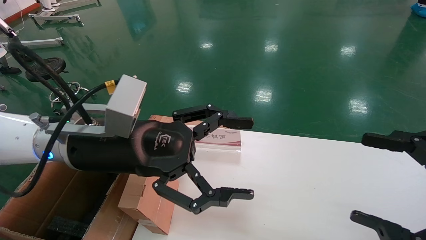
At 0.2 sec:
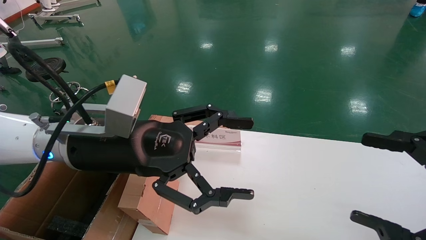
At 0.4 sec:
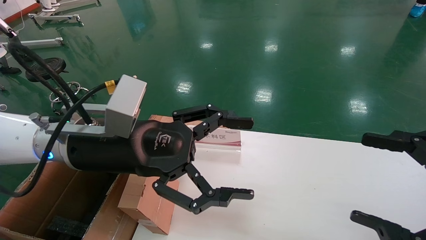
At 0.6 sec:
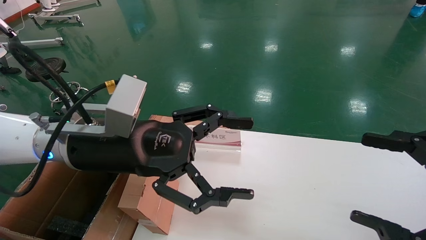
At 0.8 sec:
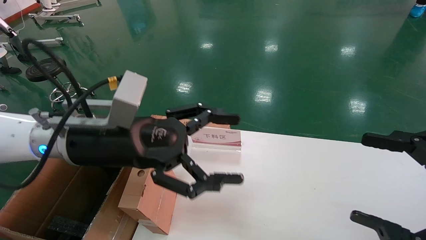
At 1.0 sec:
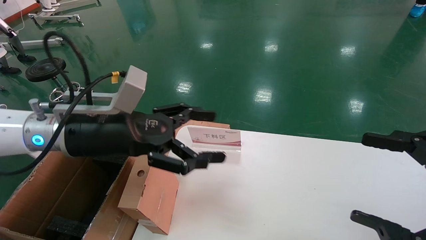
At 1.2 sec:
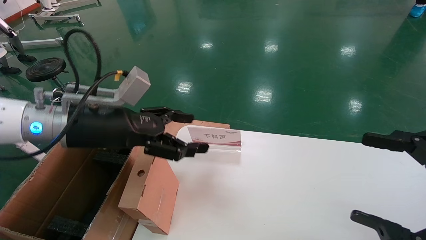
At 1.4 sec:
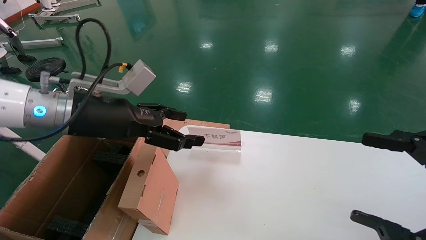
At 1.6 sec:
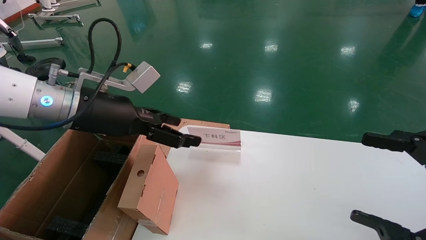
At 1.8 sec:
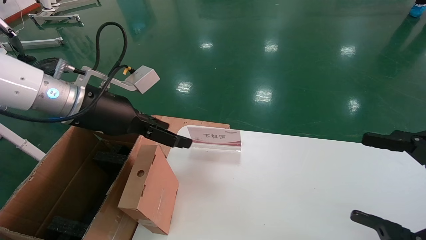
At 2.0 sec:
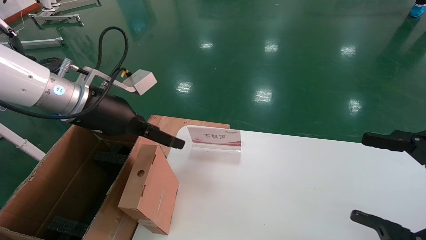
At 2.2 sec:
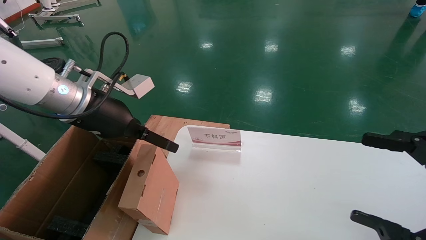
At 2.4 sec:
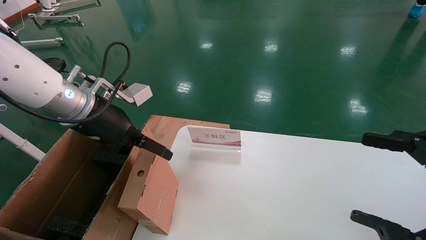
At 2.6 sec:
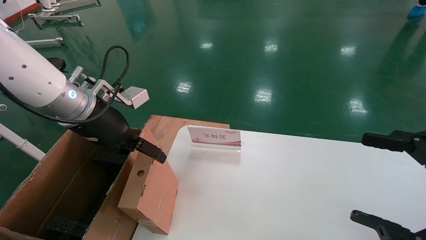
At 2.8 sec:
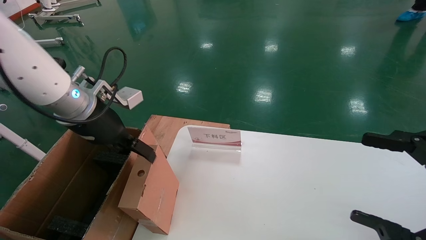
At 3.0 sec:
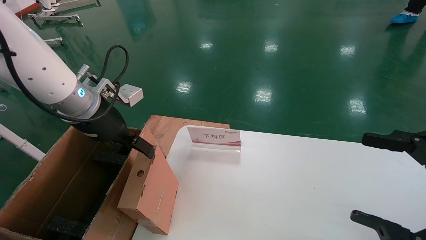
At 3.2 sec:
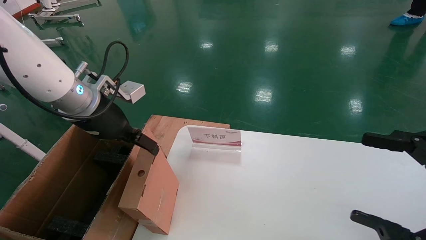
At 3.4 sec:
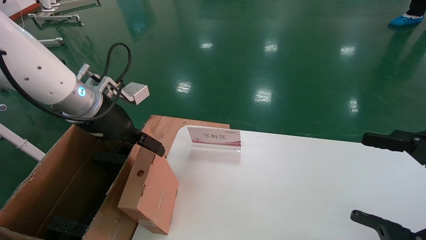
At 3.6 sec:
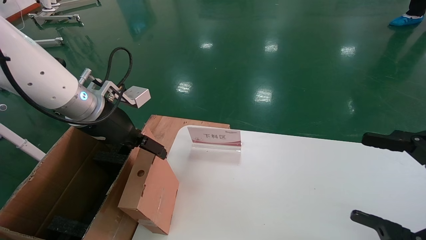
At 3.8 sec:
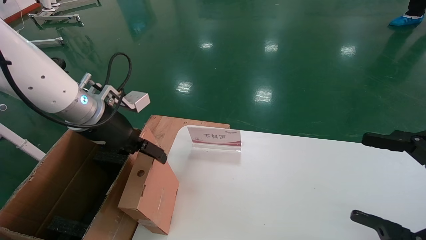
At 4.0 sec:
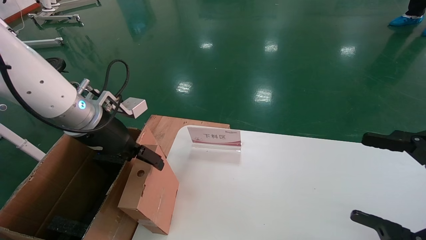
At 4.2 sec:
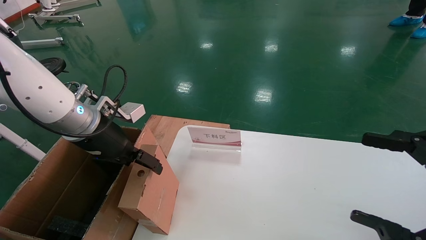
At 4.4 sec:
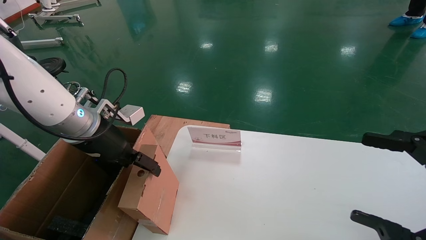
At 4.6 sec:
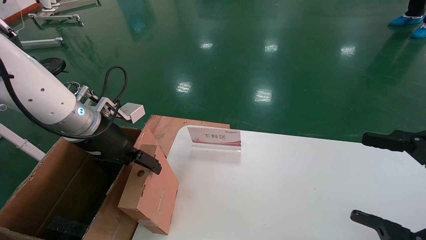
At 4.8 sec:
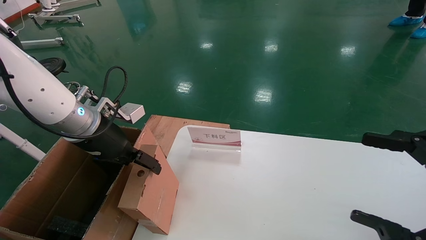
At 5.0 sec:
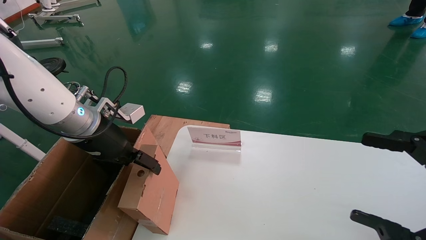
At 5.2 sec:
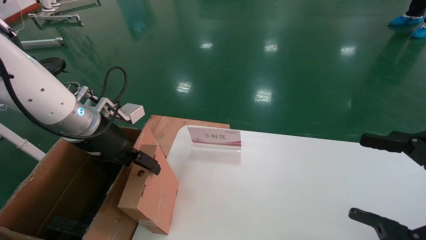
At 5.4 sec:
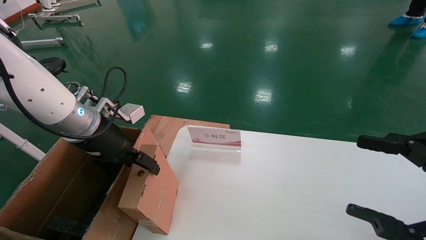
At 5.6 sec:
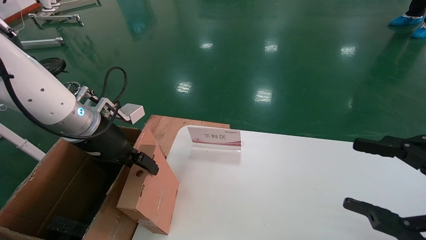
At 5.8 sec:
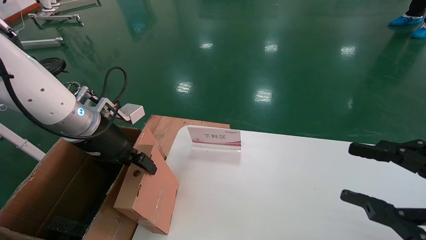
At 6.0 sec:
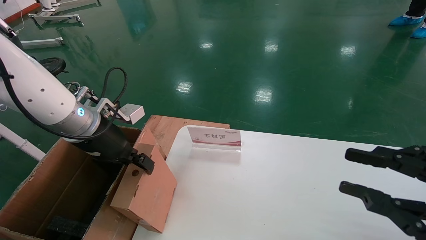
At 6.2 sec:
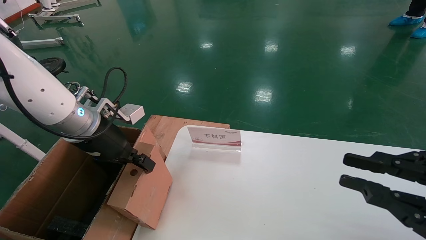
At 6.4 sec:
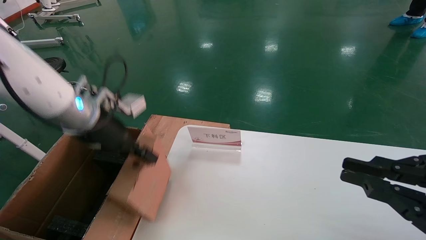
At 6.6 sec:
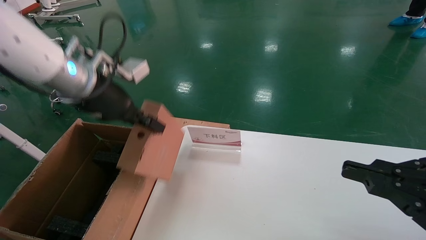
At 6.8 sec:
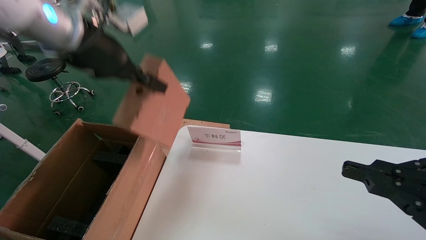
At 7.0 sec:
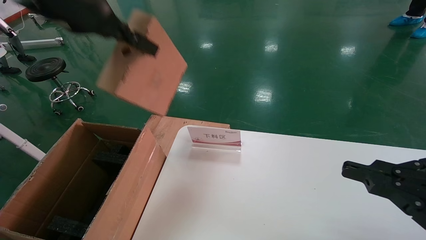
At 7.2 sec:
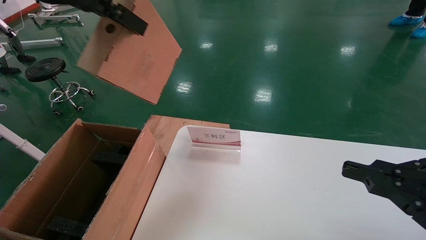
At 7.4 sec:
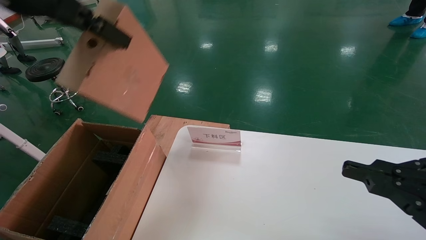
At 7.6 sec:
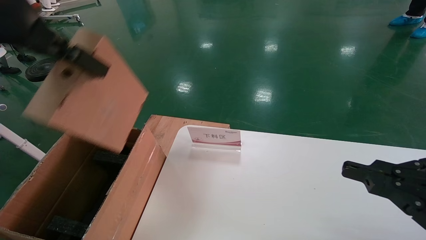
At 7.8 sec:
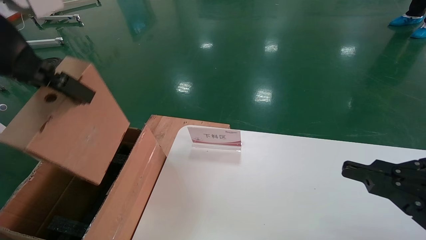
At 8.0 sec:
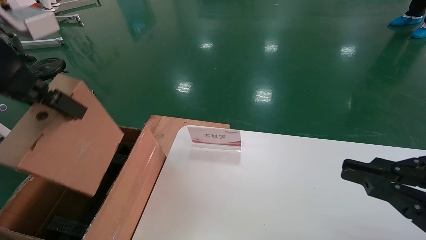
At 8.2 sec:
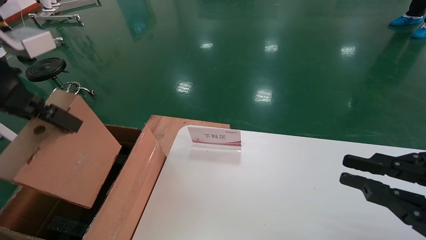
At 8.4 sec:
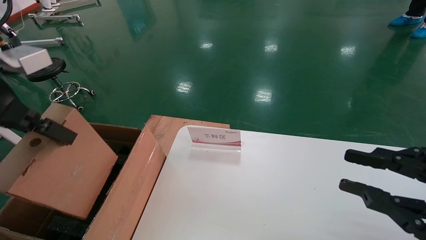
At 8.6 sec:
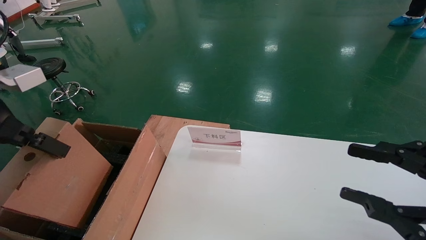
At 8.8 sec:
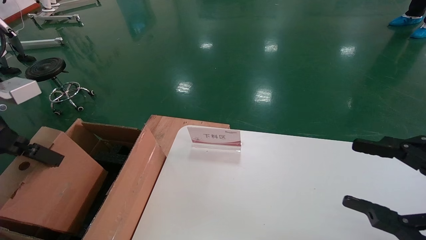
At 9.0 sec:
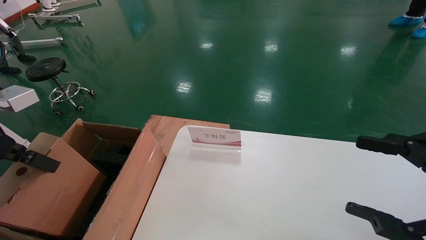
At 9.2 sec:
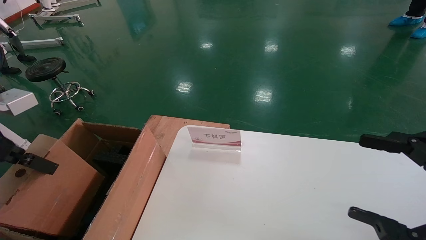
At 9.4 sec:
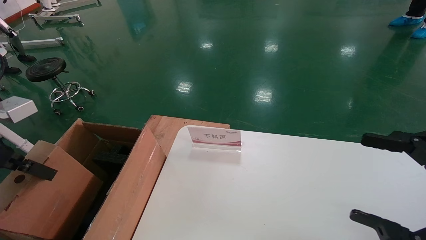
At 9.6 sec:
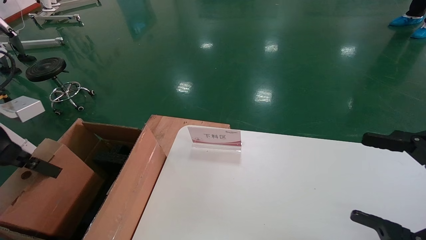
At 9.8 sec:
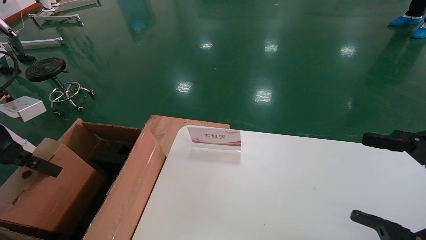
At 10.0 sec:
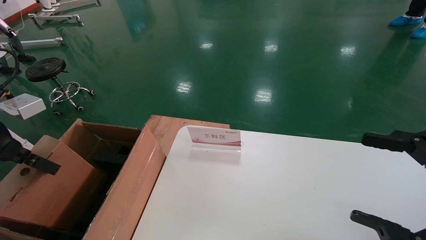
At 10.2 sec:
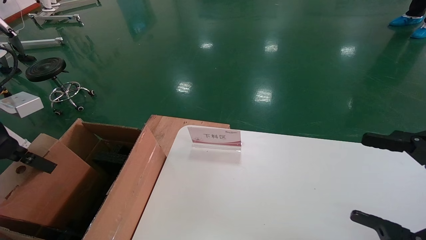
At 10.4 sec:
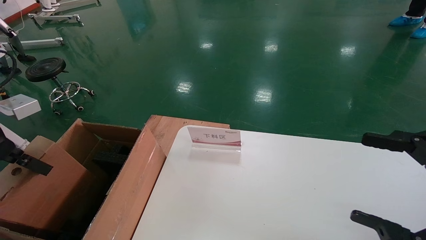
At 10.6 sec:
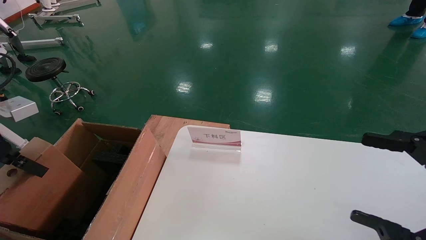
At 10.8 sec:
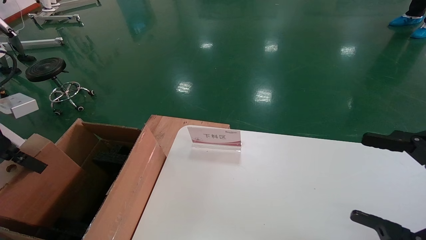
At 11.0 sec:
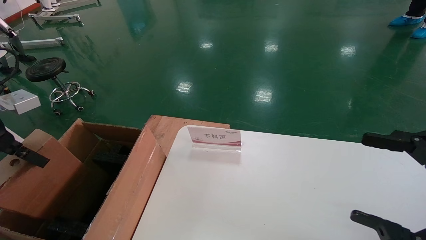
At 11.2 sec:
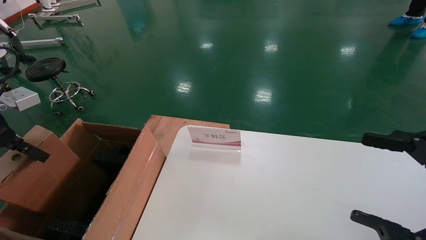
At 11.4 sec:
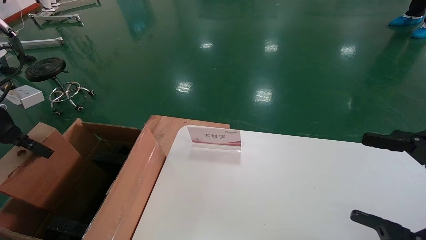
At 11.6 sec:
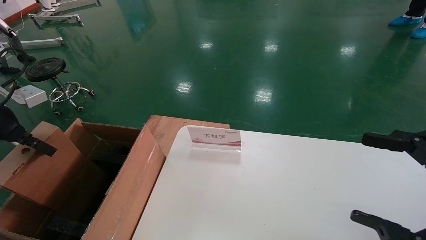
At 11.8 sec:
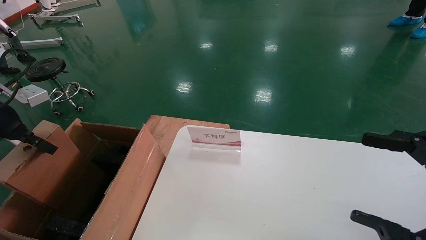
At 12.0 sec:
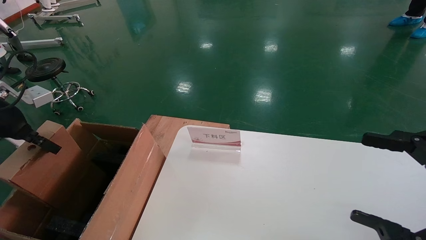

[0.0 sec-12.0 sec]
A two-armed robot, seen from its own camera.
Task of the whole recording: pick up the small cardboard box and load it into the large cardboard box.
Step, 1.6 sec to 6.4 sec: Pick up the mouse and power cord box.
0.0 sec to 1.6 sec: The left gripper travels to the left by roughly 5 cm.
3.0 sec to 4.4 sec: The grippers stay close to where they were, moving slightly.
4.4 sec to 6.0 sec: The left gripper closes its fingers, while the right gripper closes up.
6.0 sec to 7.6 sec: The right gripper closes its fingers, while the left gripper shifts roughly 25 cm upward and backward, and closes.
7.6 sec to 9.0 sec: The left gripper moves downward and to the left, some 20 cm. Meanwhile the right gripper opens.
9.0 sec to 10.4 sec: The left gripper changes place by about 5 cm.
10.4 sec to 12.0 sec: The left gripper shifts about 10 cm forward and to the left.

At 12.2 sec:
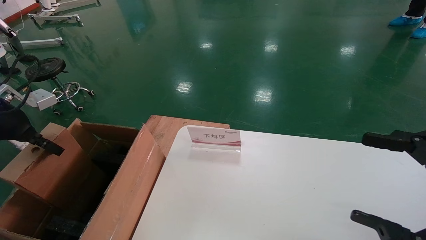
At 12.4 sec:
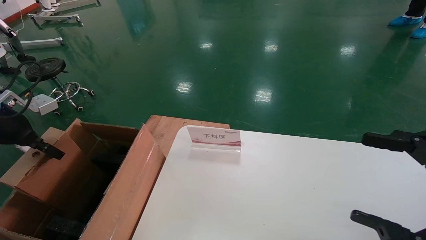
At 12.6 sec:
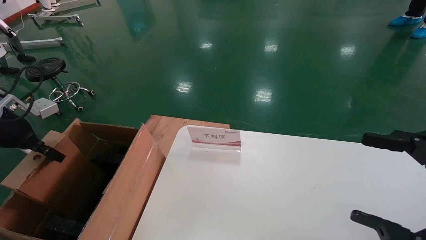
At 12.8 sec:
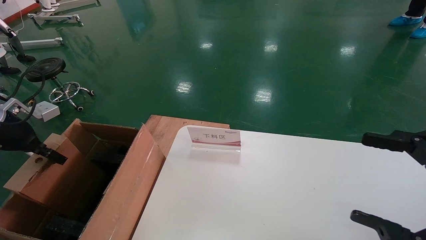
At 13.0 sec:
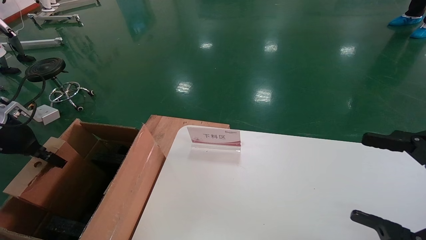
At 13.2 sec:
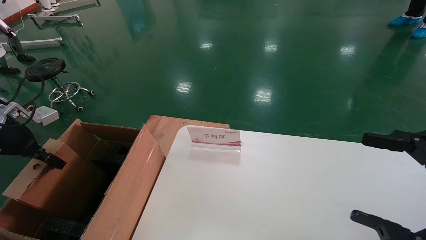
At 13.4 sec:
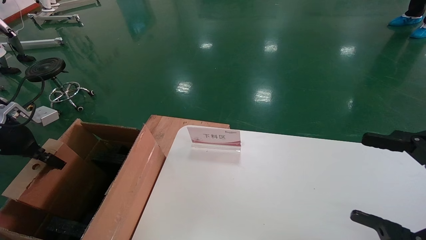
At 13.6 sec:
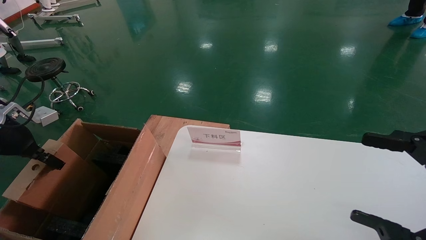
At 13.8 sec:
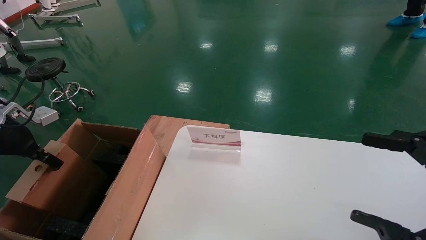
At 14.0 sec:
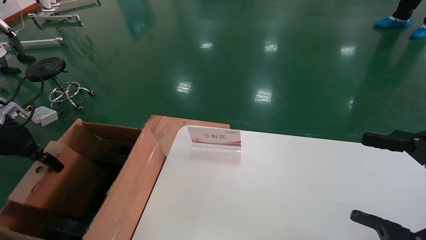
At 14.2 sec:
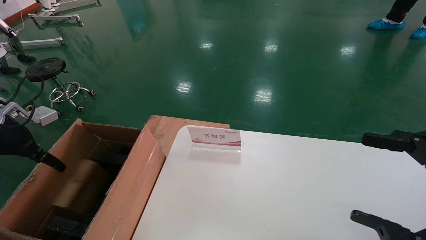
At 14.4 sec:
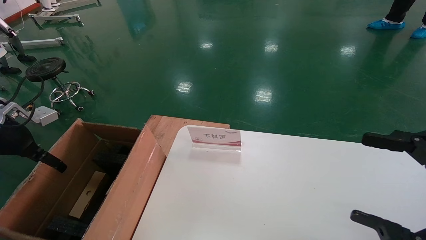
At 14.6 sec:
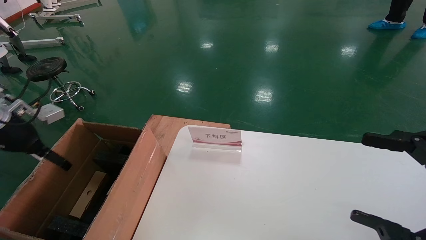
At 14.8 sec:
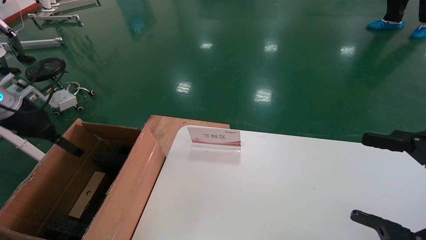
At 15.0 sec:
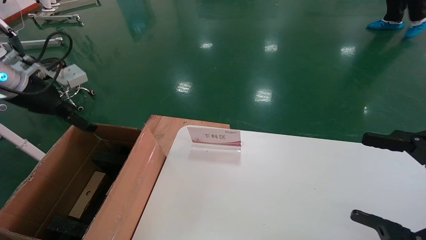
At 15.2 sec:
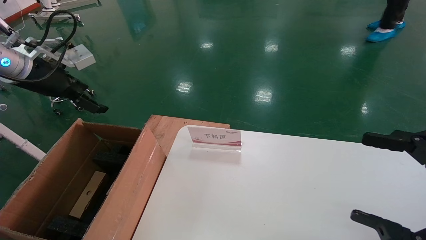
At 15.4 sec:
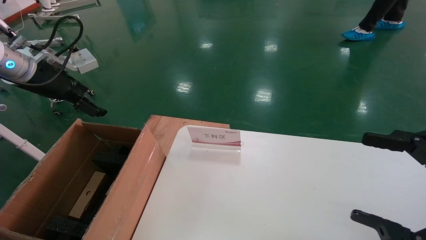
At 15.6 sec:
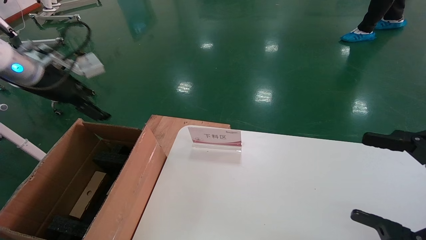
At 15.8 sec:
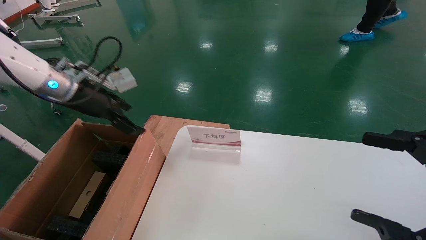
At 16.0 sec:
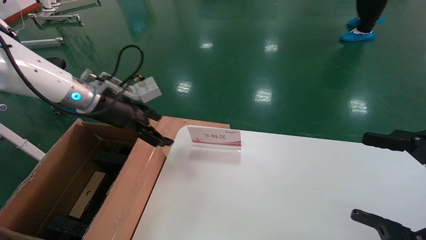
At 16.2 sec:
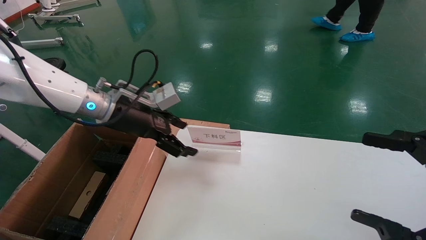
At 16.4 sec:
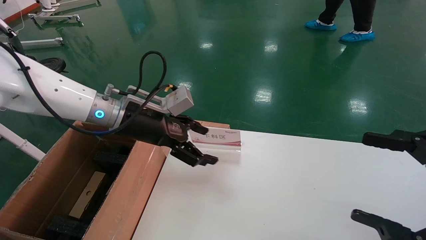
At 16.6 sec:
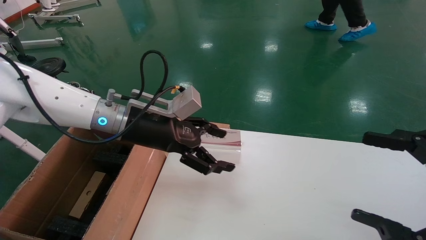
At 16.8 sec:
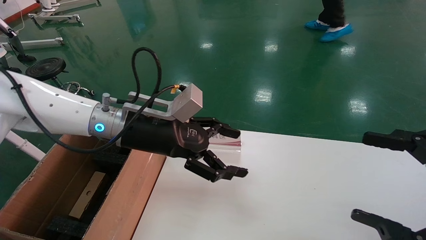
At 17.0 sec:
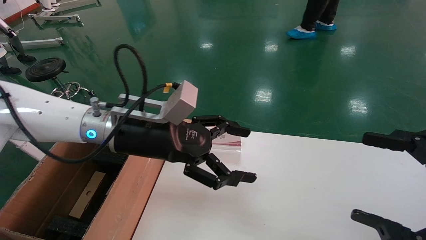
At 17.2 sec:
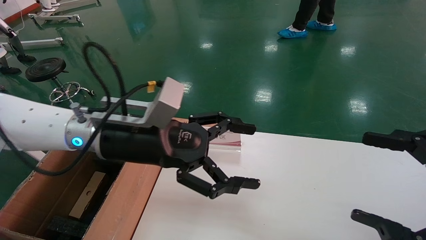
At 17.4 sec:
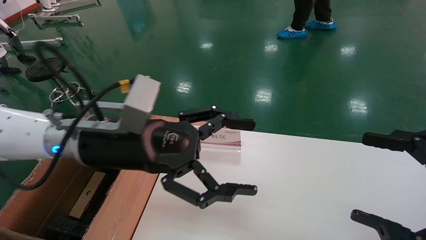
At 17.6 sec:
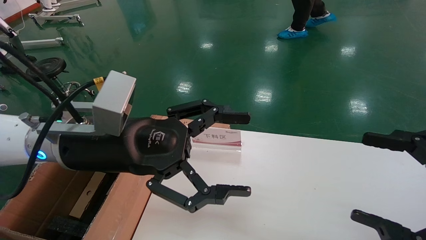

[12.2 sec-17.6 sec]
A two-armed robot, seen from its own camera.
Task of the whole recording: pick up the small cardboard box and load it into the large cardboard box.
12.2 sec to 13.6 sec: The grippers stay close to where they were, moving slightly.
13.6 sec to 15.0 sec: The left gripper moves upward and to the right, about 10 cm, and opens its fingers.
15.0 sec to 16.2 sec: The left gripper is displaced to the right by about 20 cm.
16.2 sec to 17.6 sec: The left gripper shifts about 15 cm backward and to the right.
